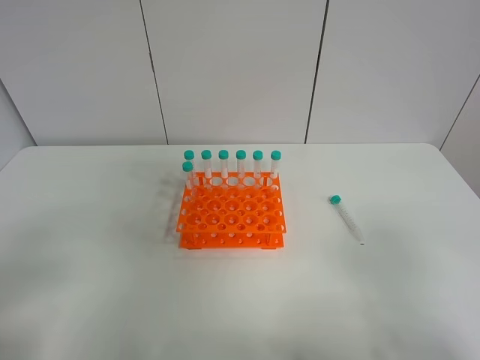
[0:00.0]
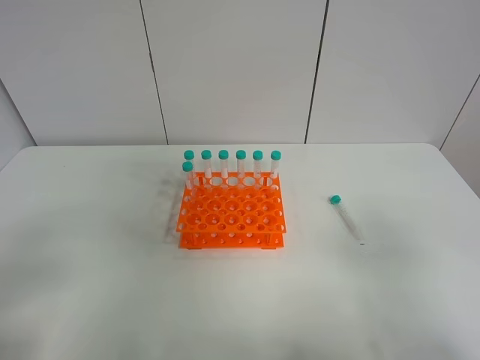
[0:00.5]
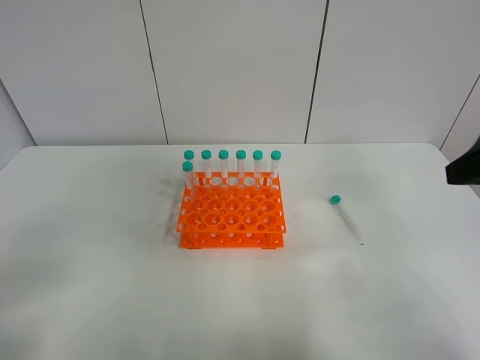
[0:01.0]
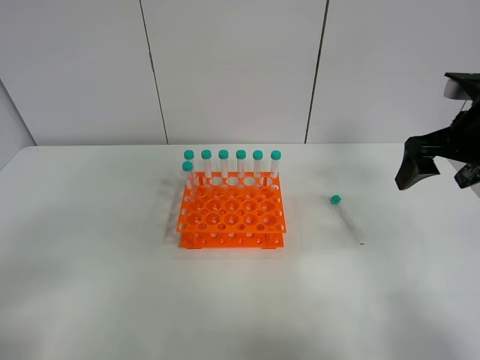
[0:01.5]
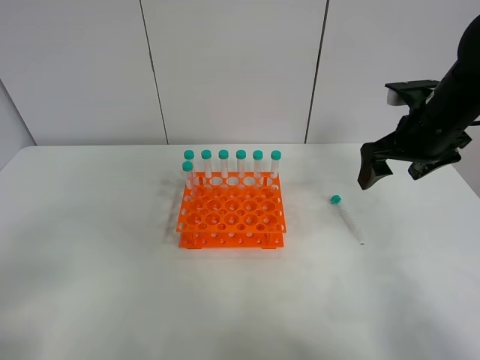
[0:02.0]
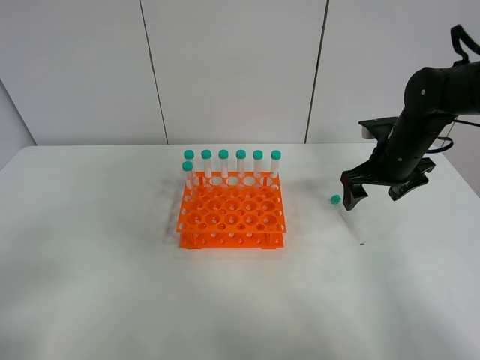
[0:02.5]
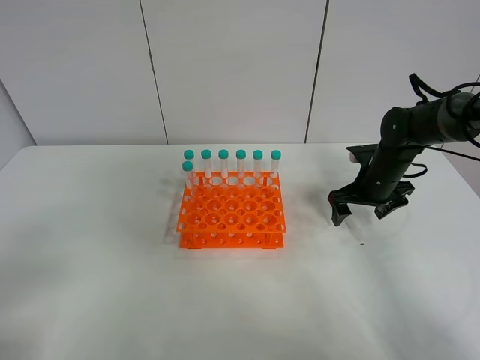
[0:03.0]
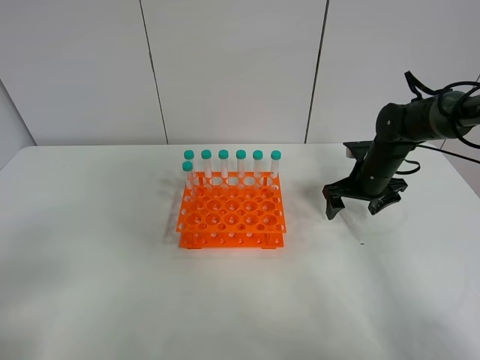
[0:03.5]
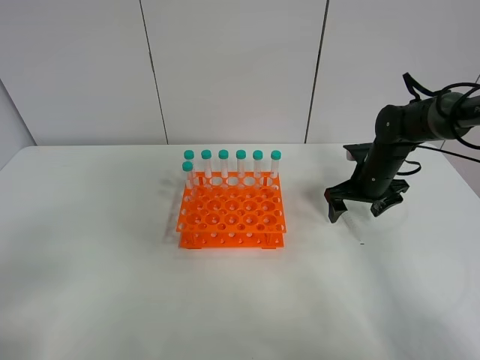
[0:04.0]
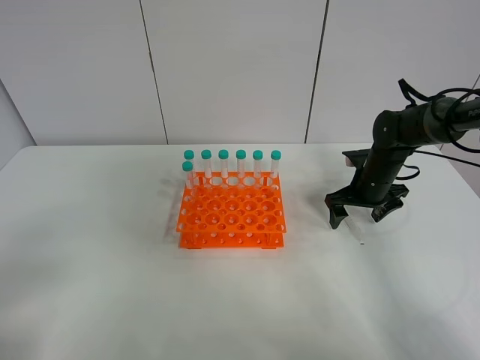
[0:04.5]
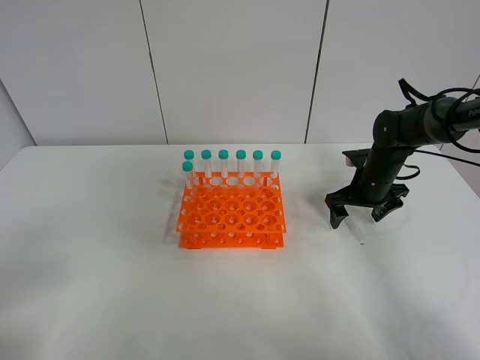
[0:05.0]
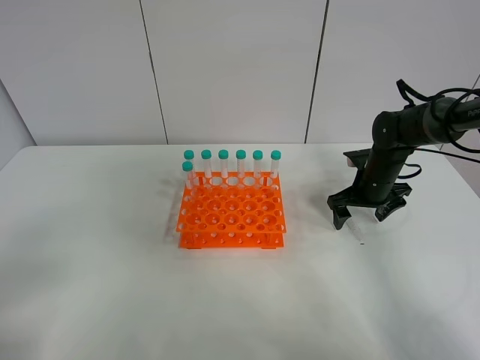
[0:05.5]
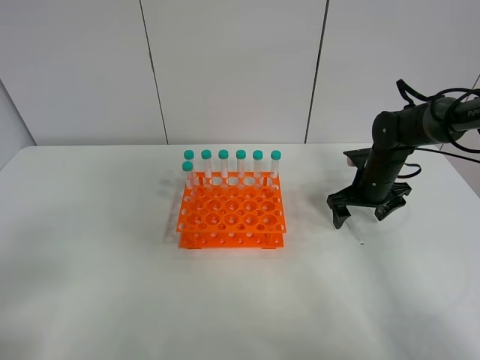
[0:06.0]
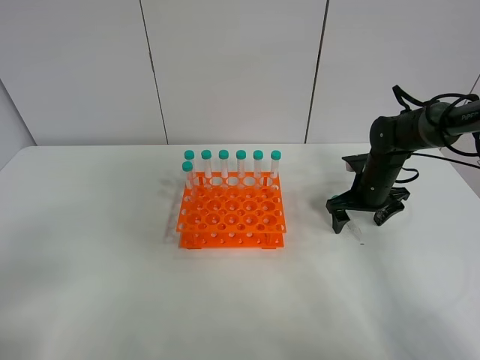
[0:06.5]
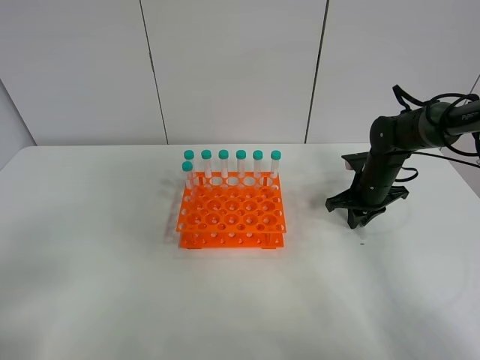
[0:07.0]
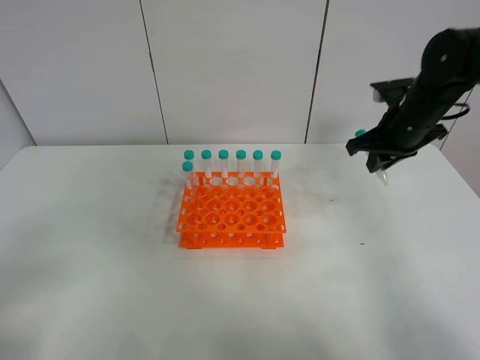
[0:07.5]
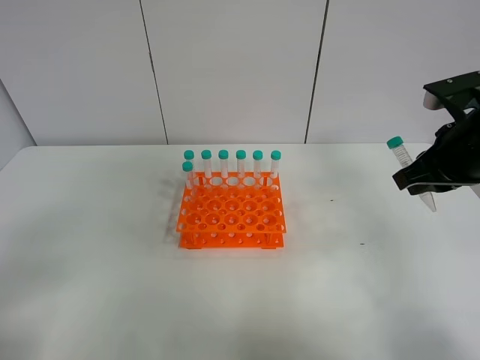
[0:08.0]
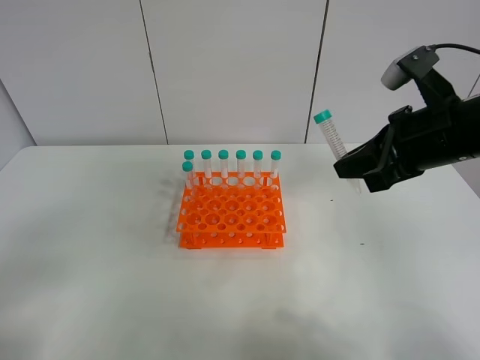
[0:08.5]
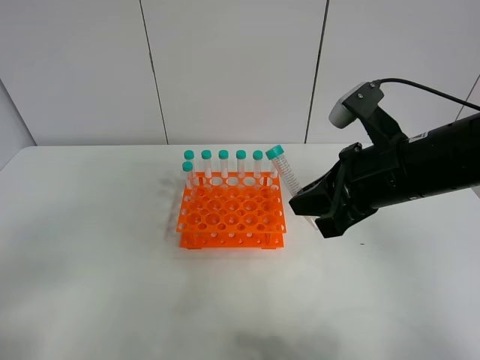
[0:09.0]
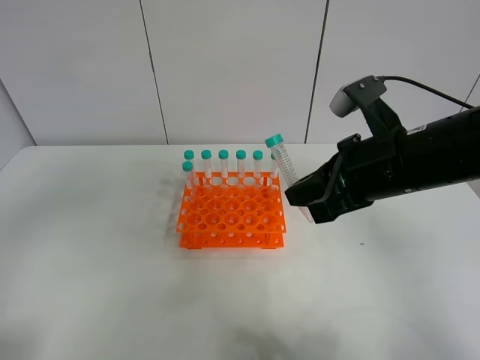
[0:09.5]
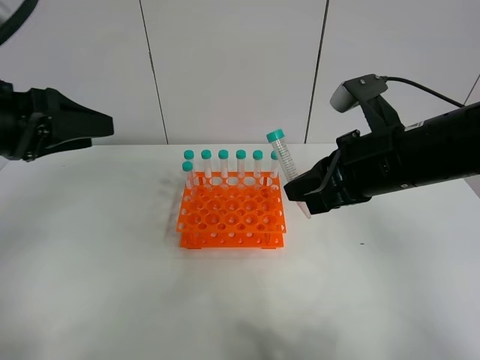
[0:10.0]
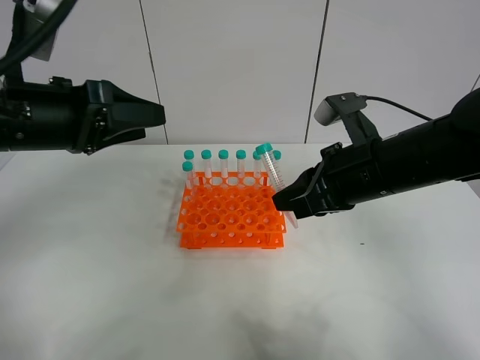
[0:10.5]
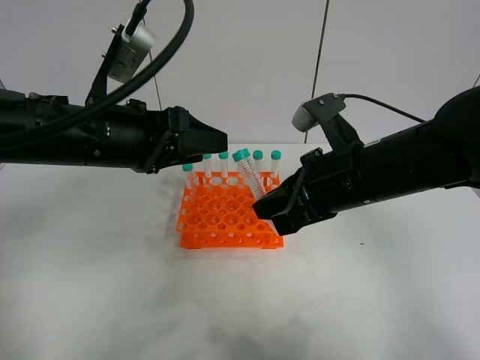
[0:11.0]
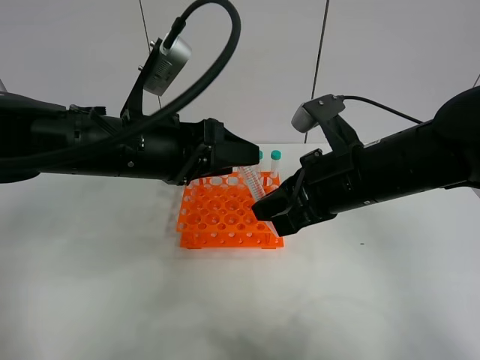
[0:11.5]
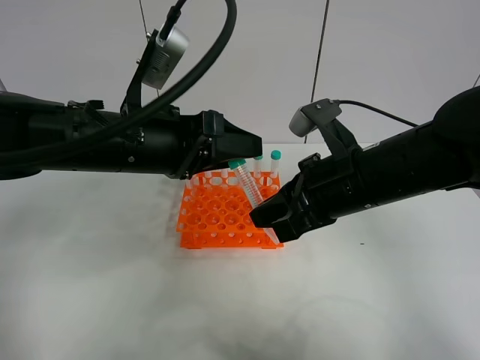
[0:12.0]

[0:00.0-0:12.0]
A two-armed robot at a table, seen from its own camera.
Task of the whole recording: Put the test tube on the table back onto the test tube rack.
Step, 0:00.0 to 0:06.5: Pick up the test tube with the right gripper.
0:00.0 to 0:02.0: The right gripper heads forward, covering about 35 cm.
0:02.0 to 0:04.0: The right gripper shifts approximately 15 cm downward and forward.
0:04.0 to 0:06.0: Both grippers stay put.
0:06.0 to 0:08.0: The right gripper heads upward and backward, covering approximately 25 cm, and closes its fingers.
0:08.0 to 0:10.0: The left gripper moves forward, some 25 cm. Meanwhile the right gripper shifts about 10 cm to the left.
0:10.0 to 0:12.0: The left gripper travels to the right by about 15 cm.

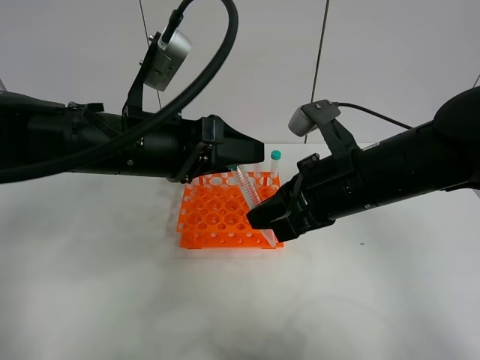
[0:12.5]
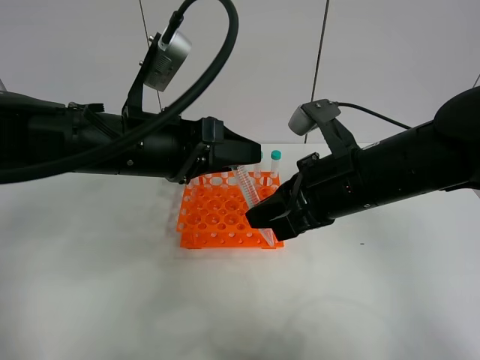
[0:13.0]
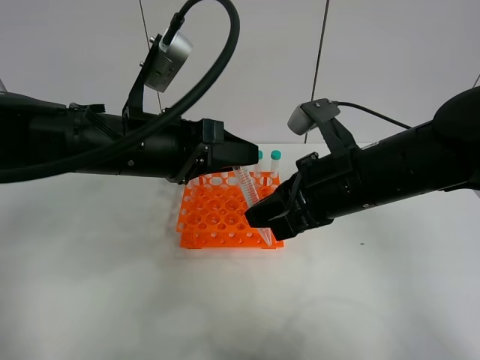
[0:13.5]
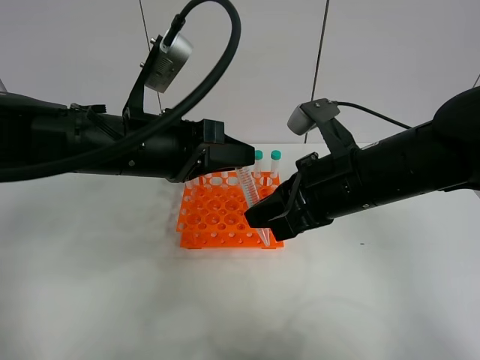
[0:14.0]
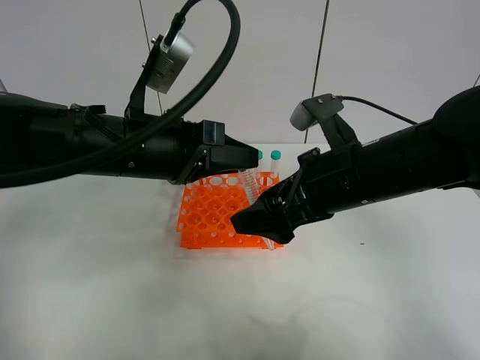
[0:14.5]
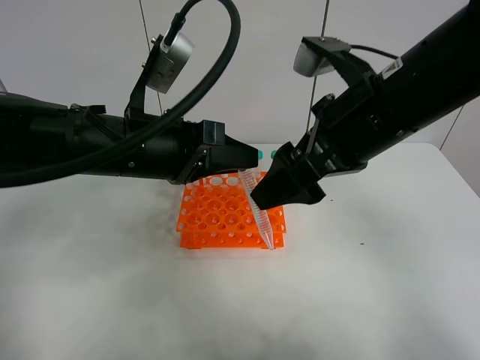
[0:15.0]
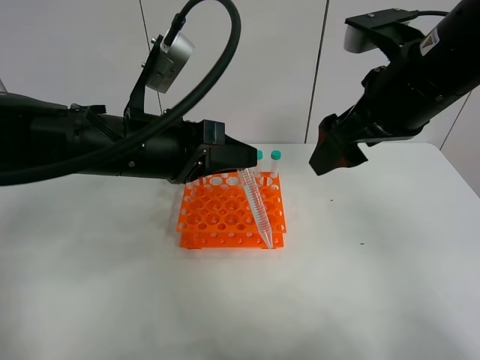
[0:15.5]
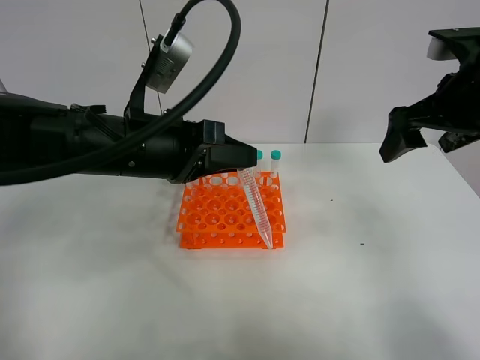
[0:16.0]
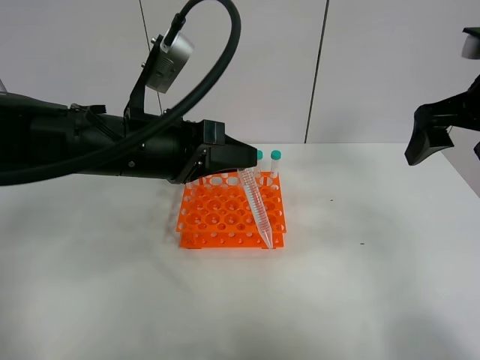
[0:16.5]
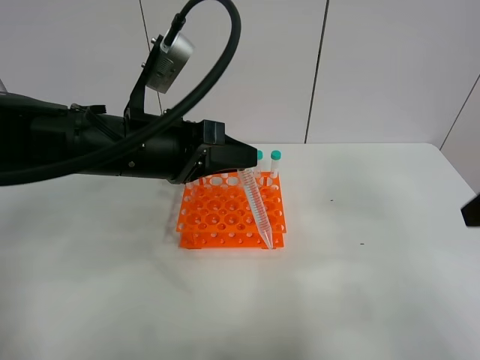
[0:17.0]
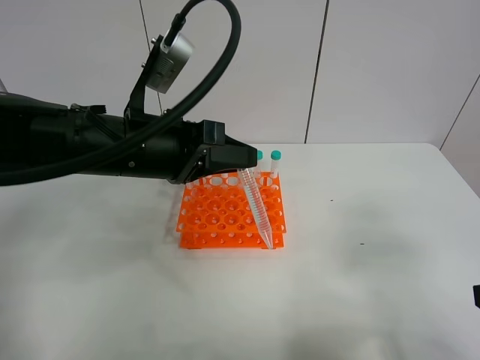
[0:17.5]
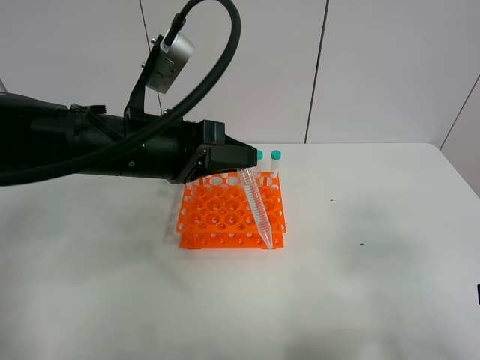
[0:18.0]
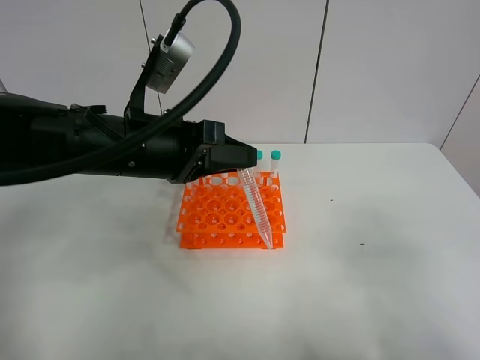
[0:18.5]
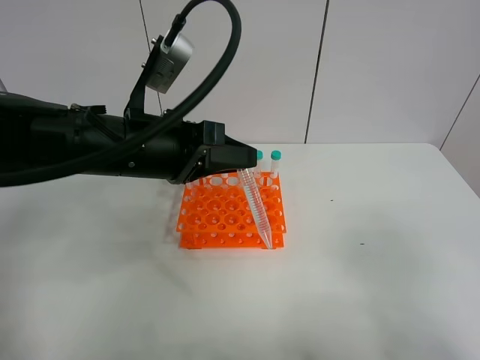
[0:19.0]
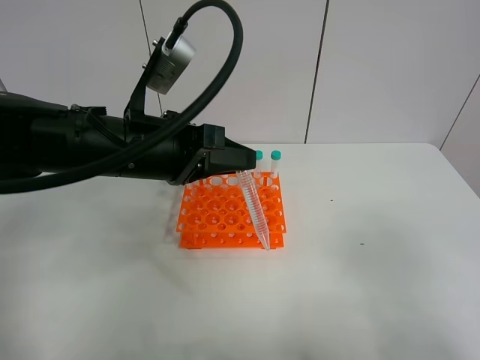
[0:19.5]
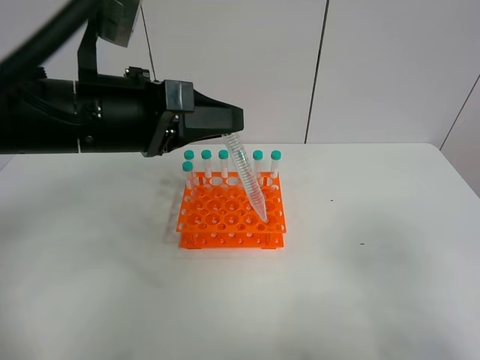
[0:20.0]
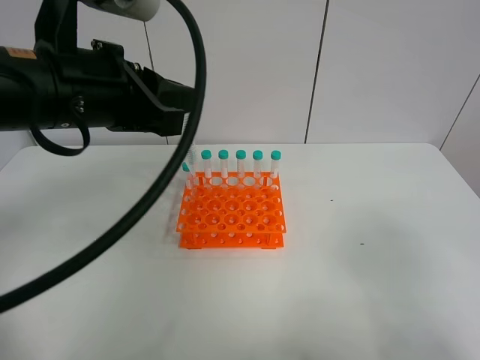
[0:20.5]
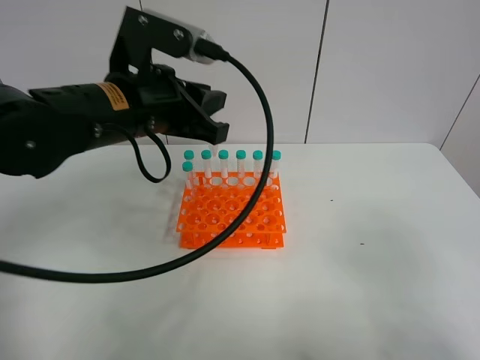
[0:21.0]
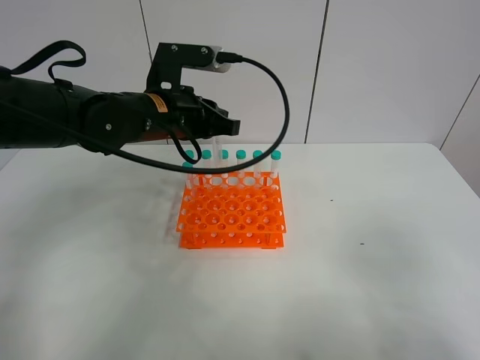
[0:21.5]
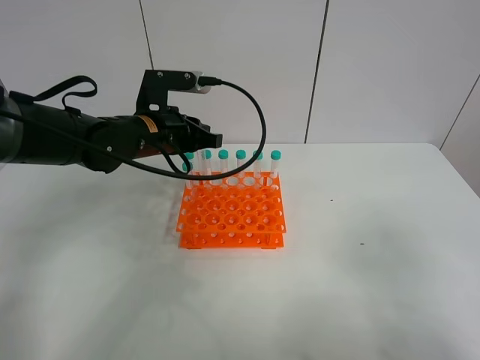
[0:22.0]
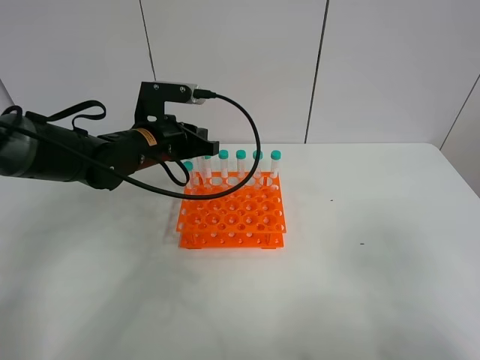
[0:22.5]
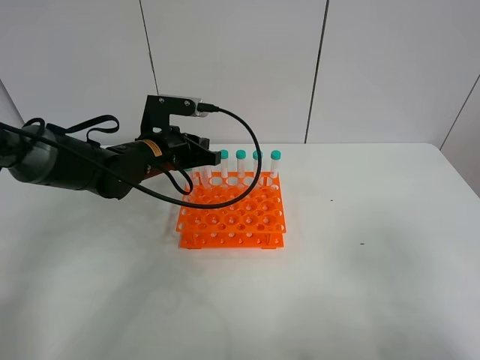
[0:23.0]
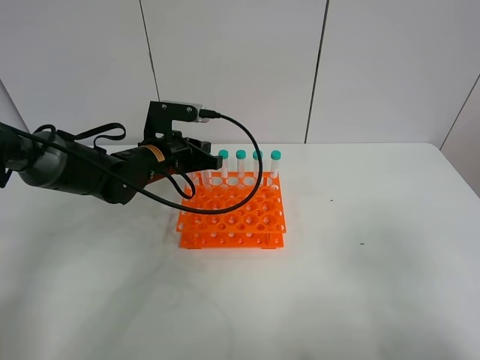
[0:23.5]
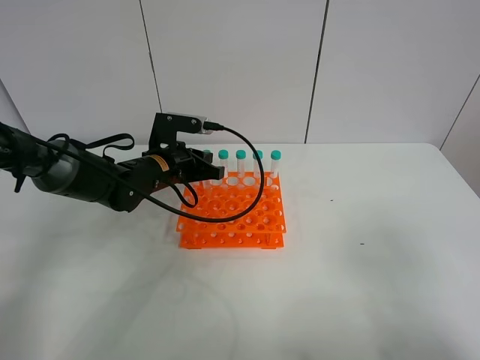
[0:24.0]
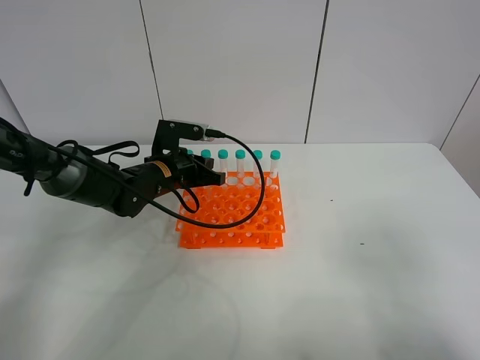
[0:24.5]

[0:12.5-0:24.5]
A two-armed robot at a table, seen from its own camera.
Task of the whole recording: Put the test tube on the table back onto the test tube rack.
Step, 0:12.5 to 0:14.5: Move the test tube from the right gripper to the left gripper.
0:12.5 to 0:14.5: The left gripper closes. Meanwhile the right gripper opens its fingers.
0:14.5 to 0:16.5: The right gripper travels to the right and upward by about 20 cm.
0:16.5 to 0:18.5: The right gripper goes roughly 25 cm backward.
0:18.5 to 0:20.5: The left gripper shifts approximately 10 cm upward.
0:20.5 to 0:22.5: The left gripper shifts some 20 cm downward and forward.
0:22.5 to 0:24.5: The left gripper goes about 5 cm downward.

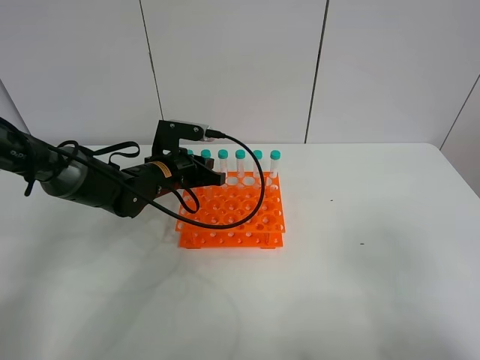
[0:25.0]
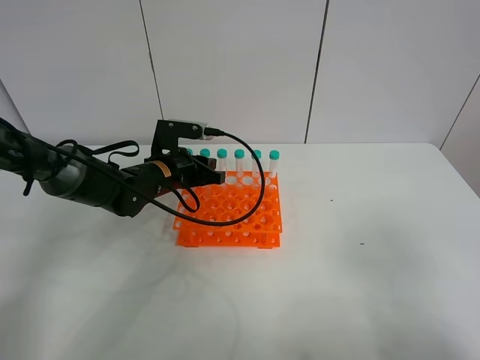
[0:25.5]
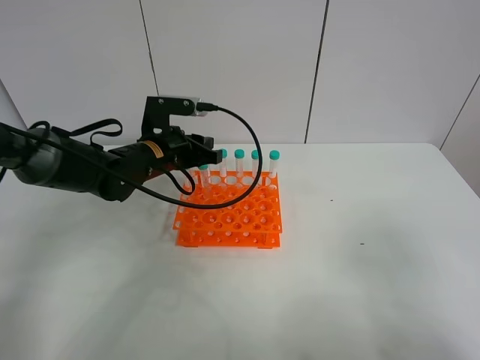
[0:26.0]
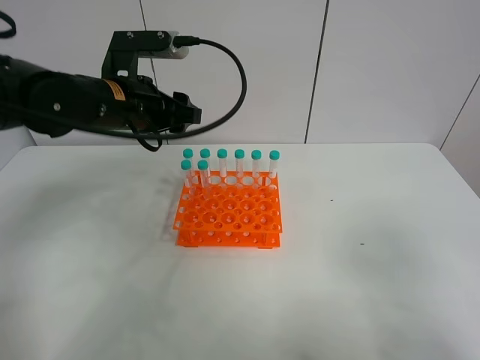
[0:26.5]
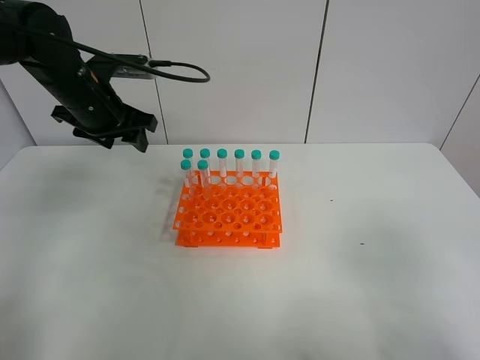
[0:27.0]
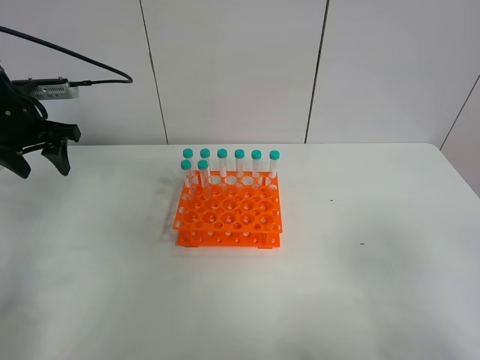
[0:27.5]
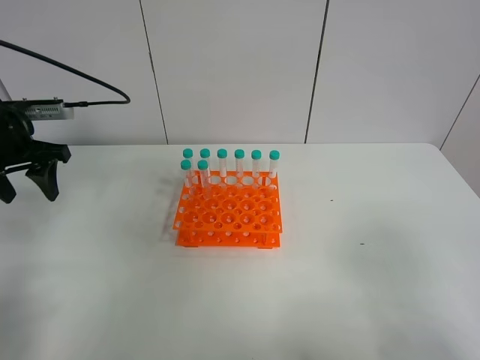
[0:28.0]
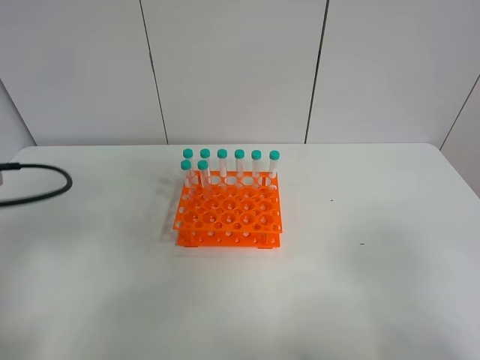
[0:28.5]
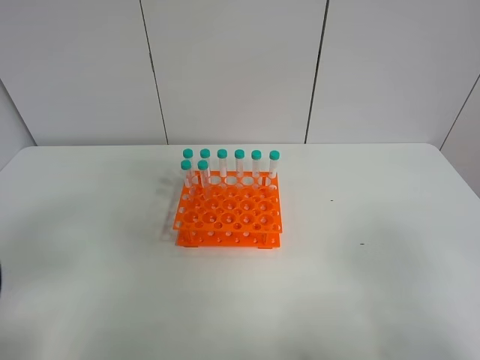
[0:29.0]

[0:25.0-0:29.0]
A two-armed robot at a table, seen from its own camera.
Task of the whole recording: Put the test tube on the table back onto the test tube rack.
0:25.0 to 0:27.0: The left gripper travels upward and to the left by about 15 cm, and opens.
0:27.0 to 0:29.0: The left gripper goes some 35 cm backward.
